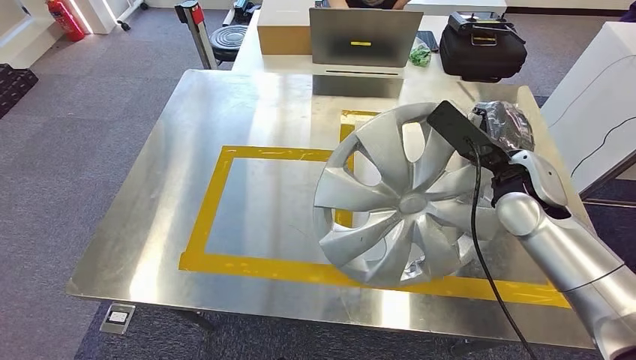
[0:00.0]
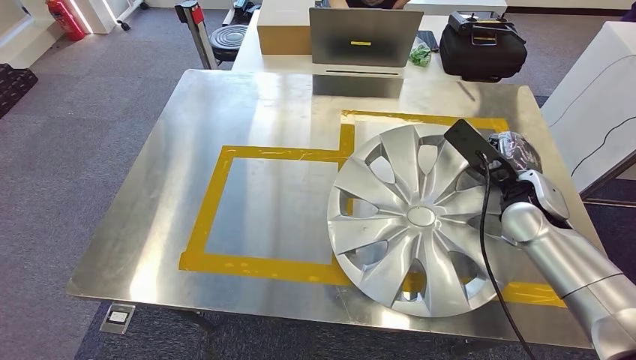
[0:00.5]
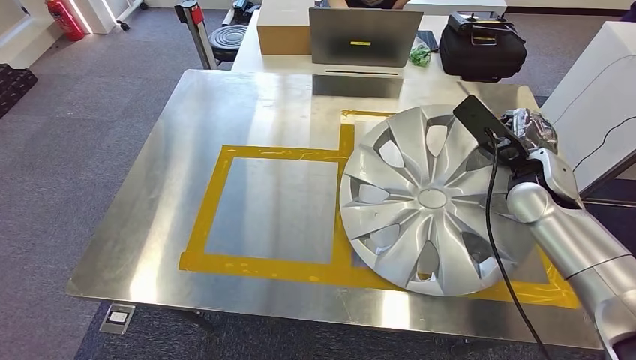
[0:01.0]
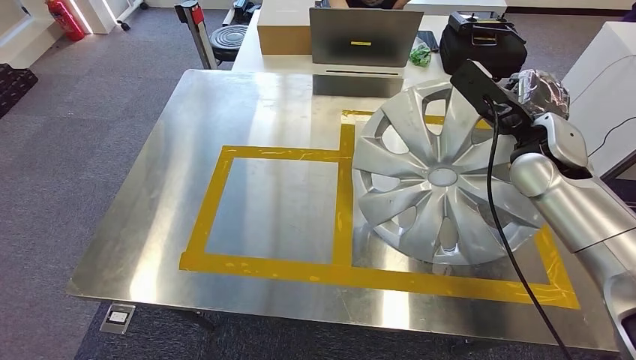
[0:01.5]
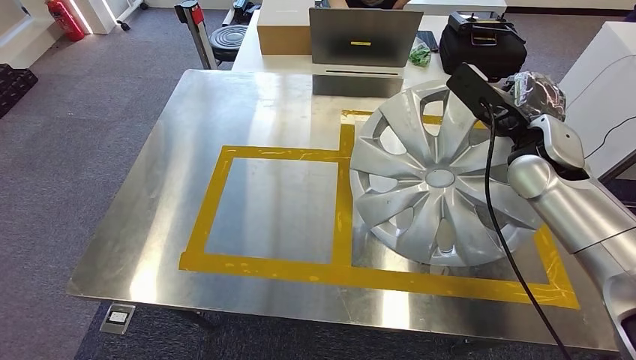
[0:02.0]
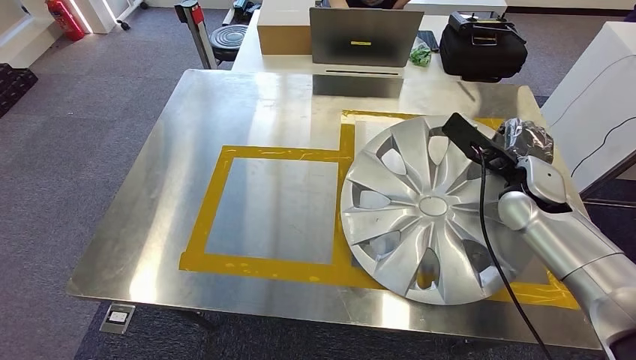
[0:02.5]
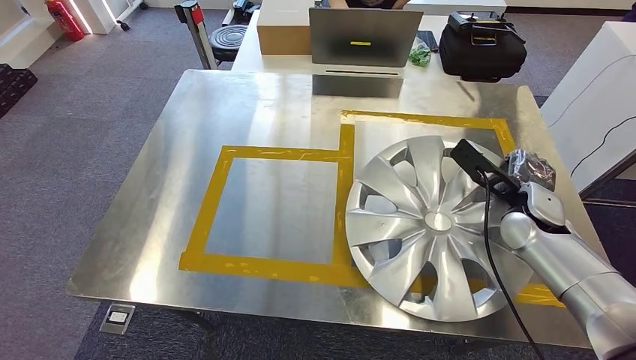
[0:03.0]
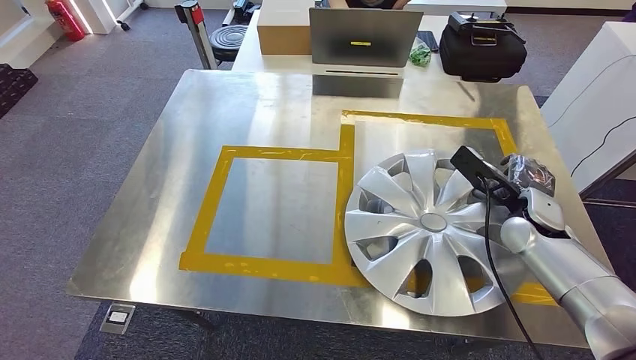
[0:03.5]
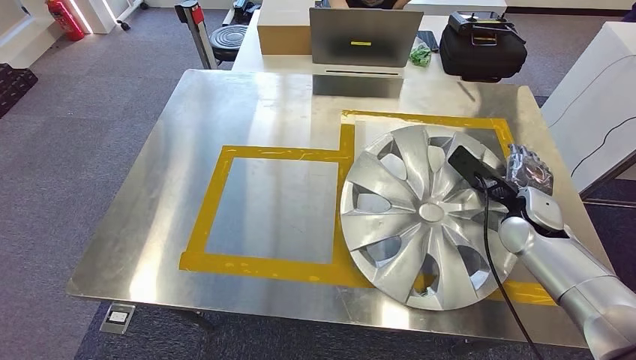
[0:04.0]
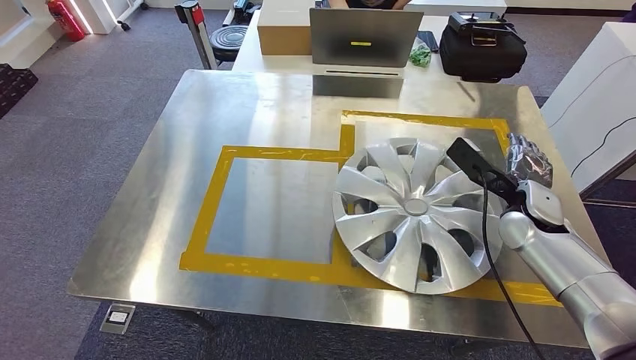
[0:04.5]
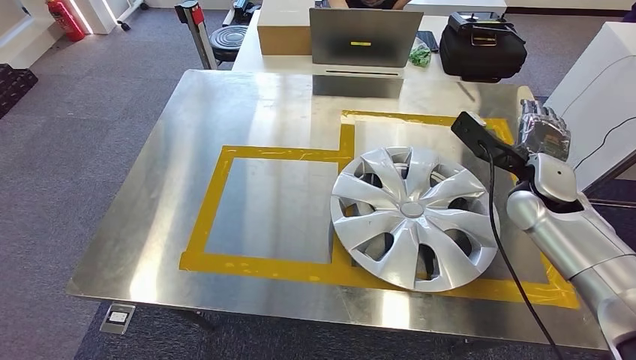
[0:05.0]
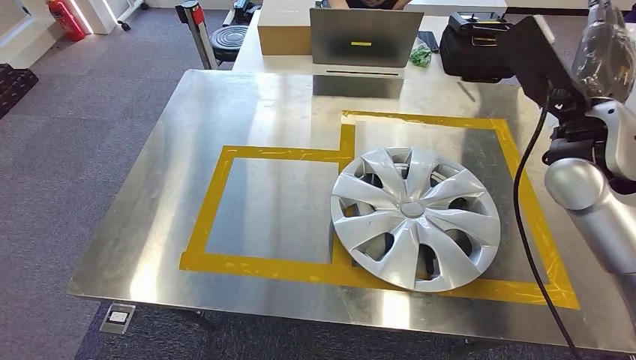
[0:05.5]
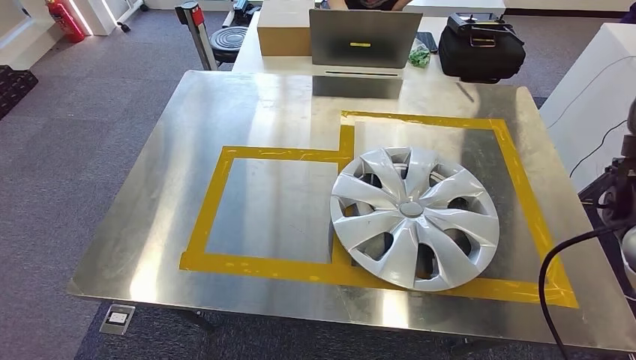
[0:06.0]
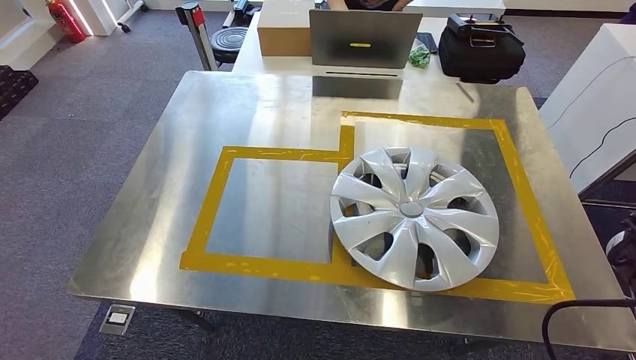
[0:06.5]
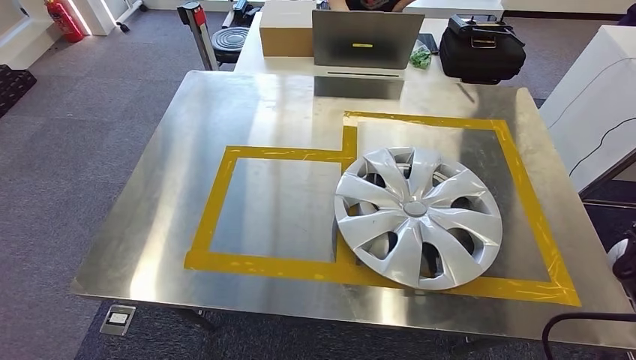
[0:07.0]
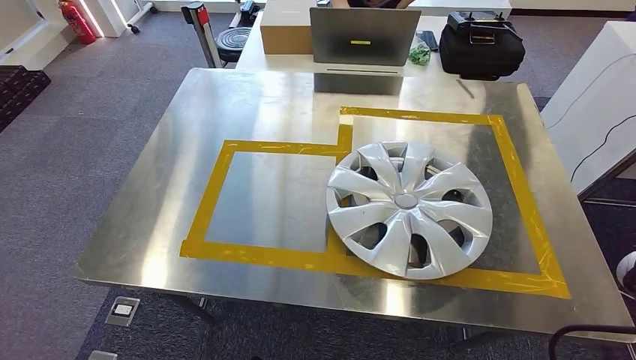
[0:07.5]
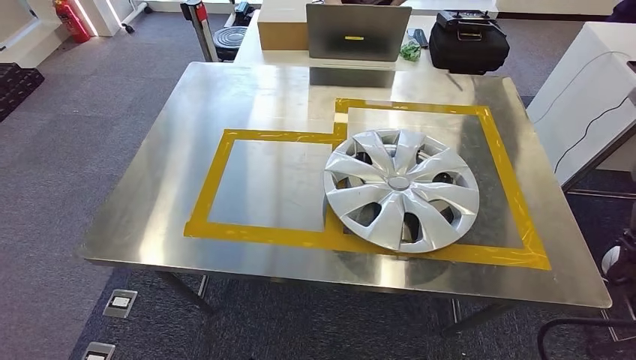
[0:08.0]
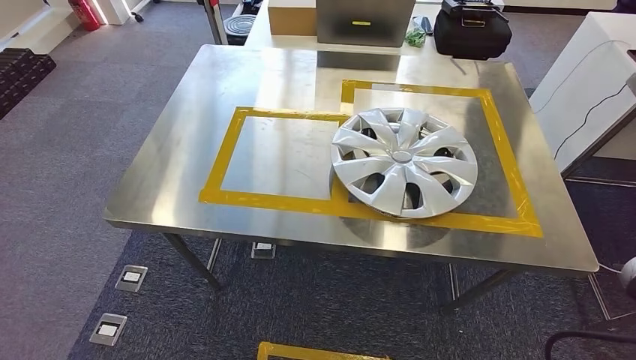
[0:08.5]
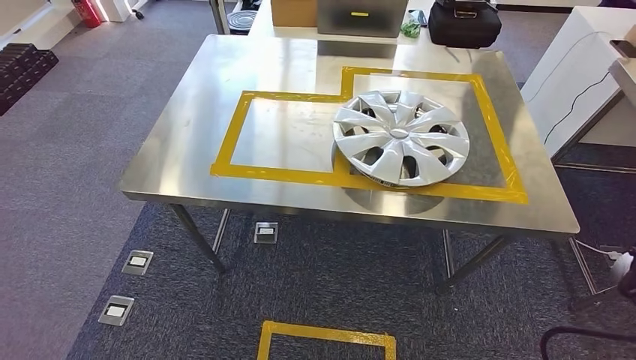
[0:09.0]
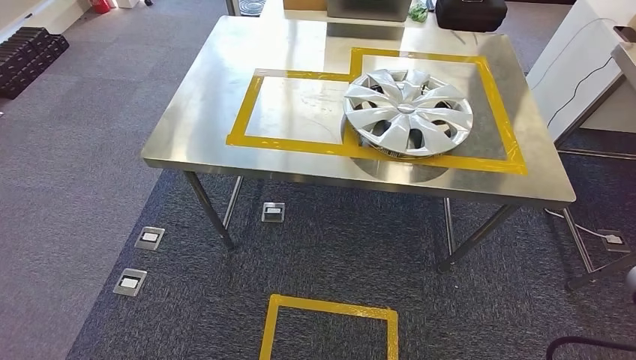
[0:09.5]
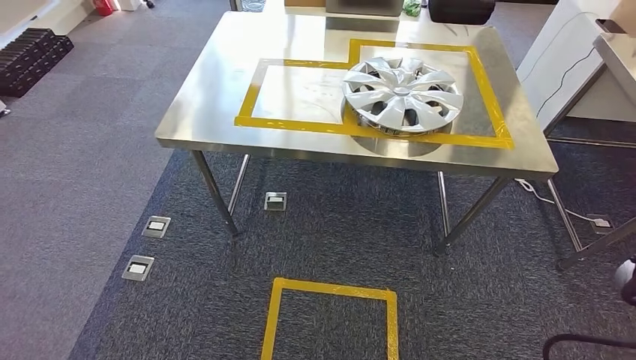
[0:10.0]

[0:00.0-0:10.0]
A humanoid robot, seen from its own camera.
Step, 0:00.0 to 0:06.5: Insert the large material into the corresponding slot on the workbench.
0:04.0 to 0:06.0: The right hand moves upward, about 20 cm.

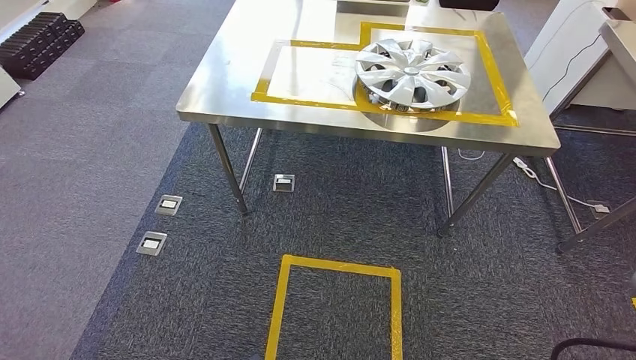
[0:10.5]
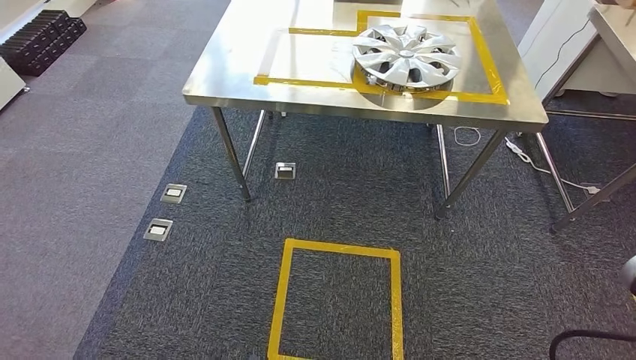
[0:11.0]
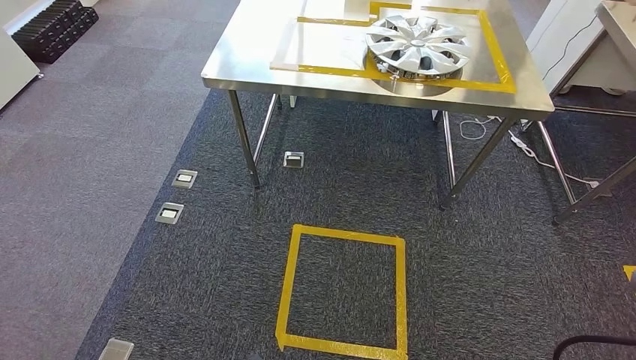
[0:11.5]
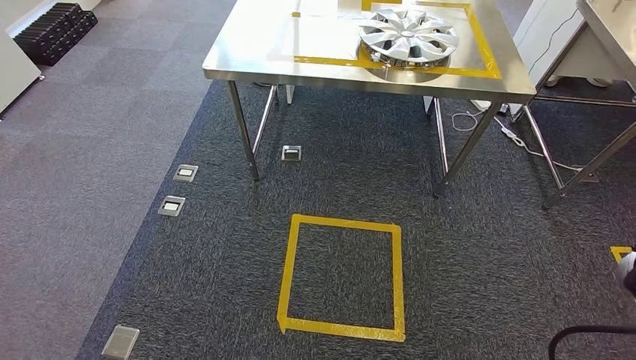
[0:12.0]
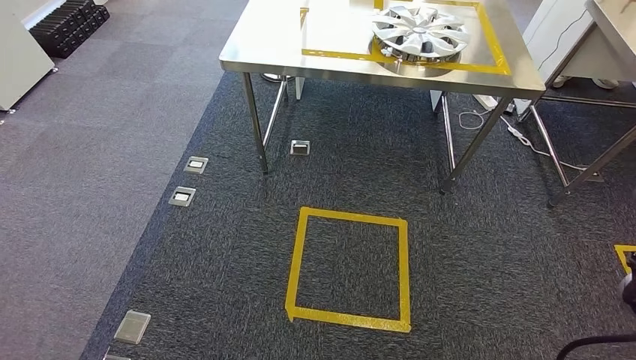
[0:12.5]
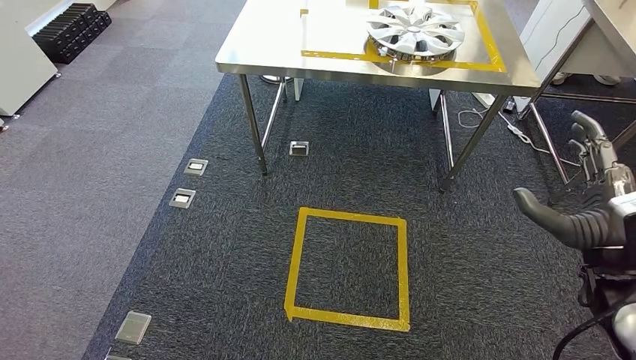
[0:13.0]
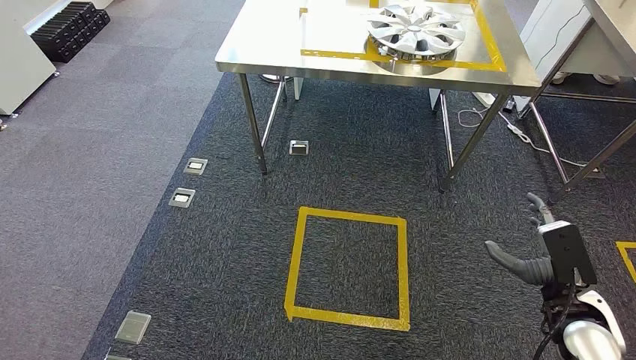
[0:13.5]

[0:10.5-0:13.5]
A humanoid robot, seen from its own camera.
Step, 0:10.5 to 0:13.5: Move to the initial position of the shelf.
